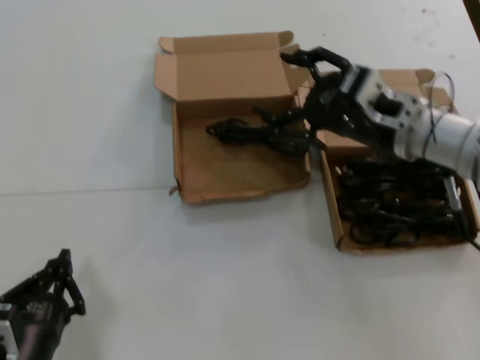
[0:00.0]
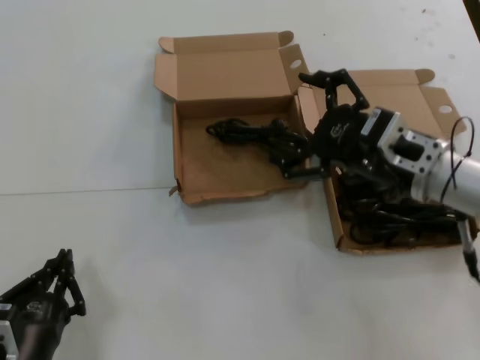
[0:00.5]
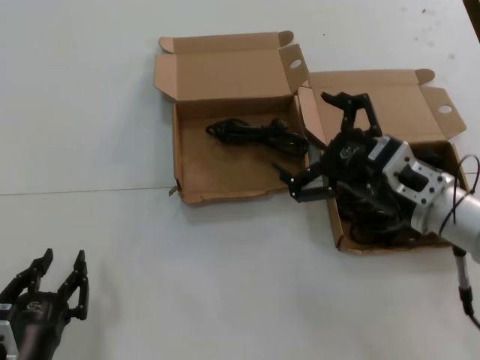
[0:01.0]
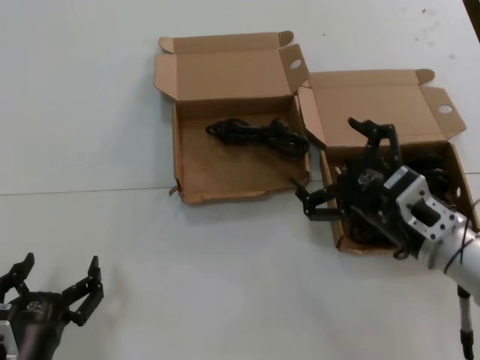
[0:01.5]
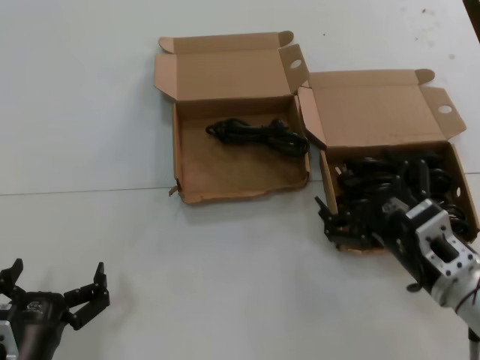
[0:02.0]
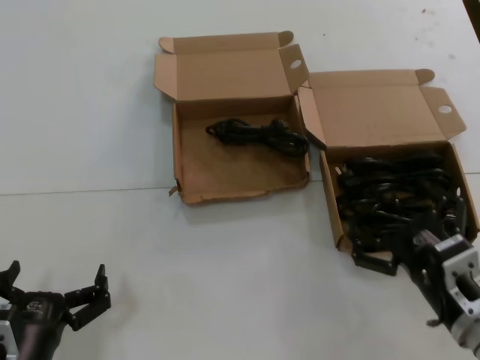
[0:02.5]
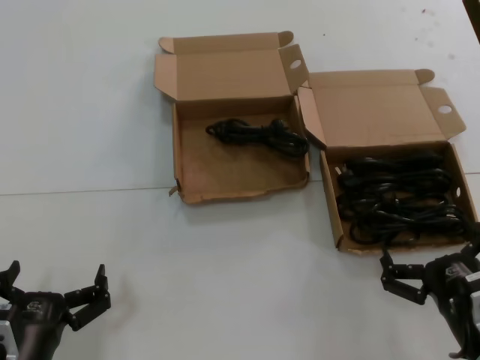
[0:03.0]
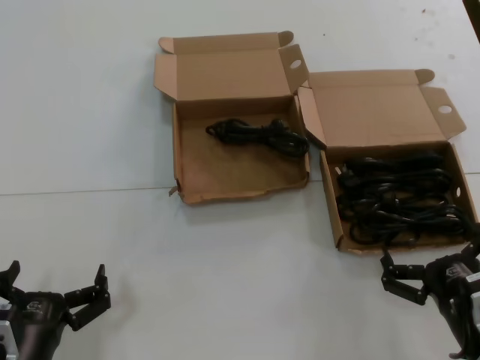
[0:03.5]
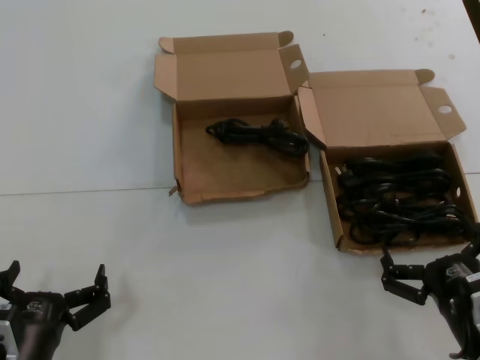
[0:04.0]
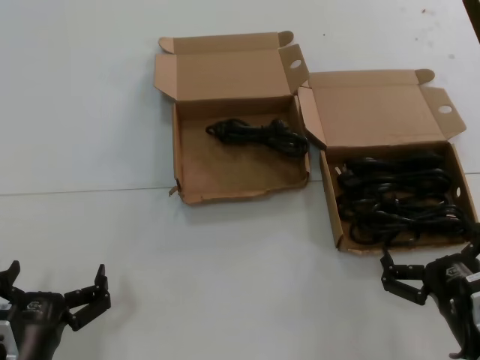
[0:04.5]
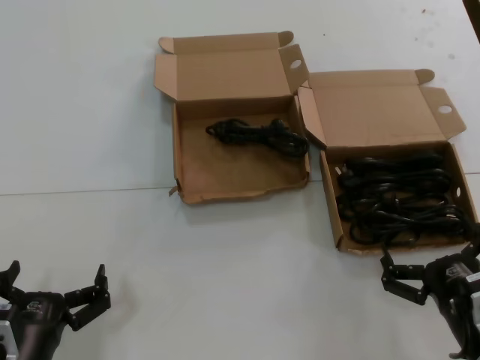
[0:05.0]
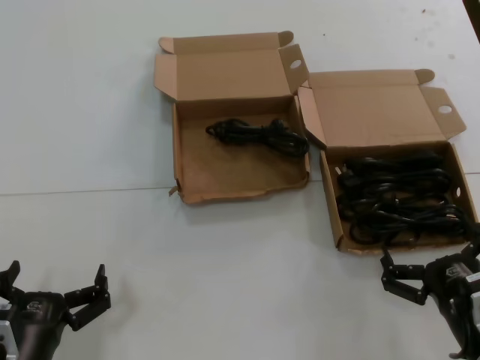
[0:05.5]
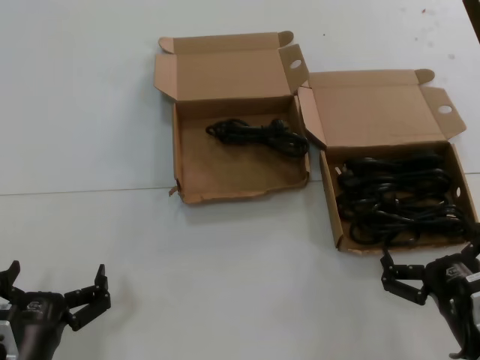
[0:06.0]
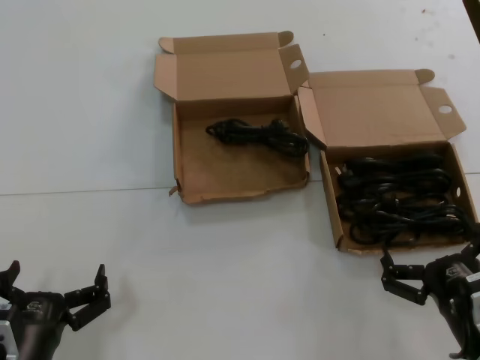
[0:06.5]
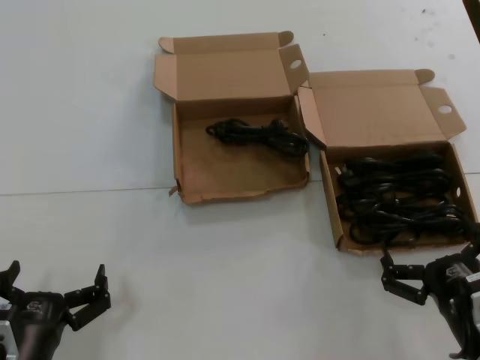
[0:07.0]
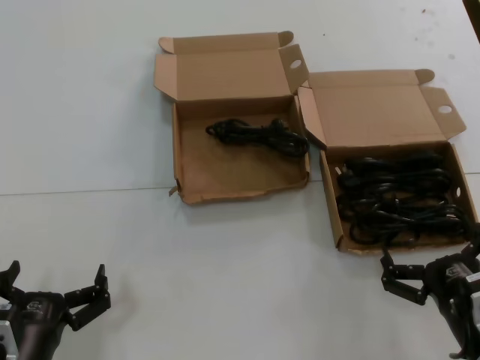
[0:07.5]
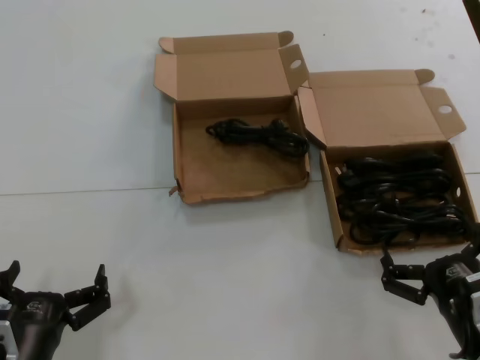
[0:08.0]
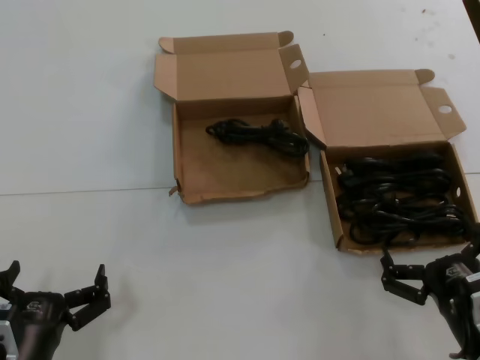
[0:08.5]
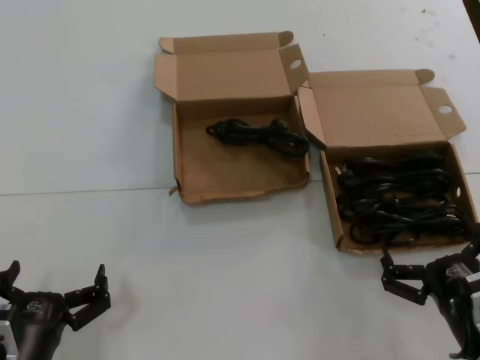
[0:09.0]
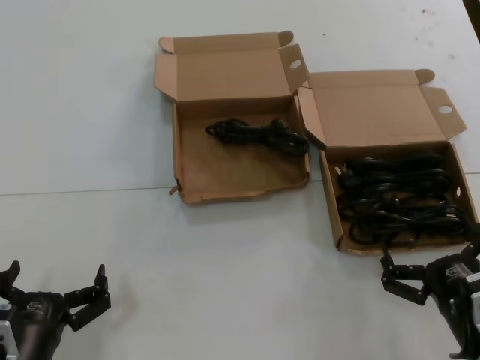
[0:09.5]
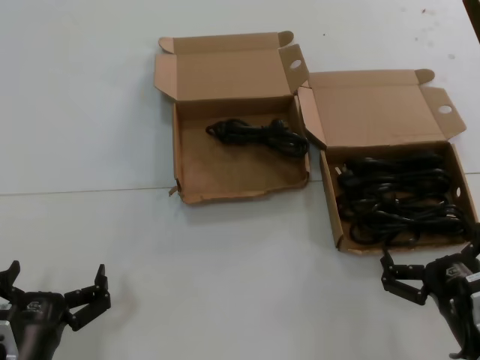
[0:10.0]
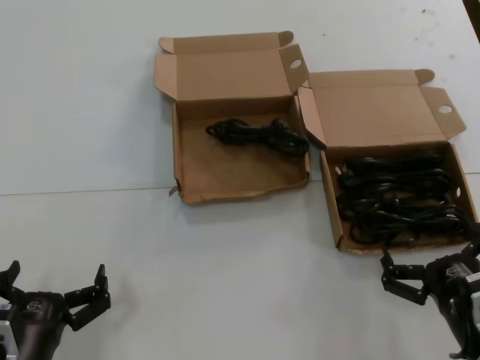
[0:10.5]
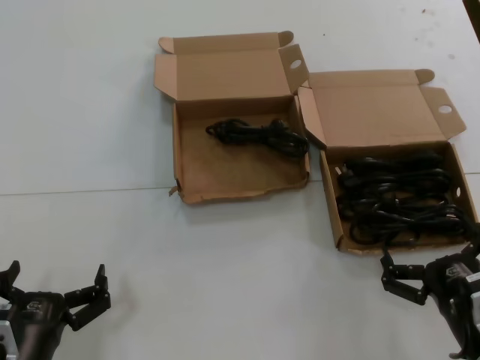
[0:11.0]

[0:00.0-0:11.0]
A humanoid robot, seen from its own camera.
Task of the whole recording: take the parts from the box containing them and put them into an empty box.
0:00.0 to 0:02.0: The right hand travels downward and backward by roughly 20 cm.
0:02.0 to 0:03.5: The right hand goes approximately 10 cm backward and downward.
0:03.5 to 0:11.0: Neither hand changes place.

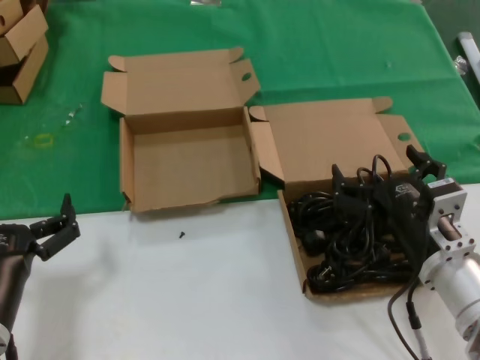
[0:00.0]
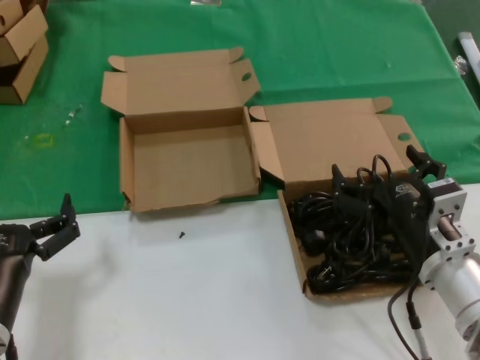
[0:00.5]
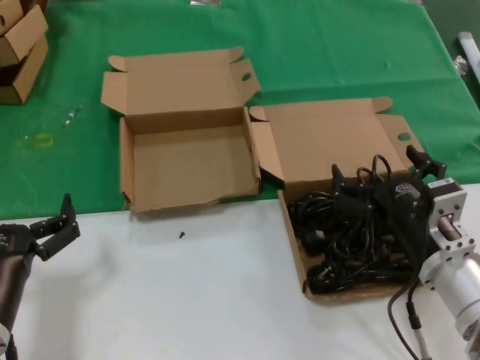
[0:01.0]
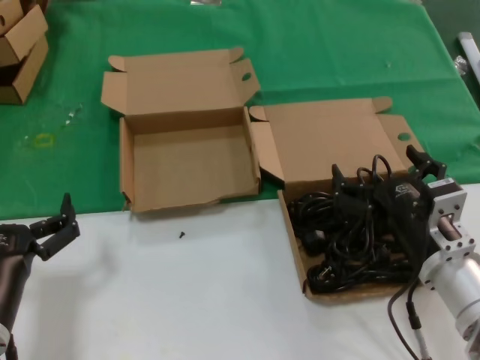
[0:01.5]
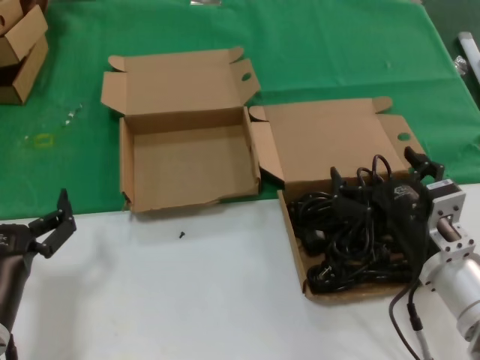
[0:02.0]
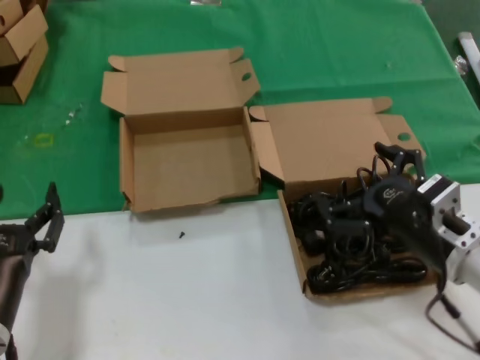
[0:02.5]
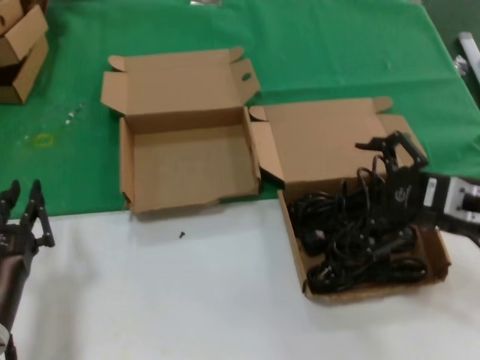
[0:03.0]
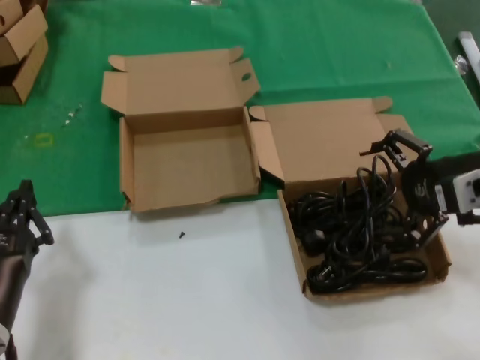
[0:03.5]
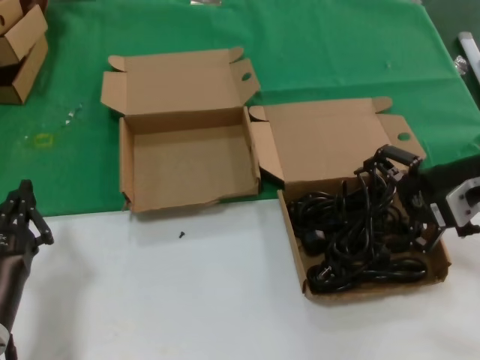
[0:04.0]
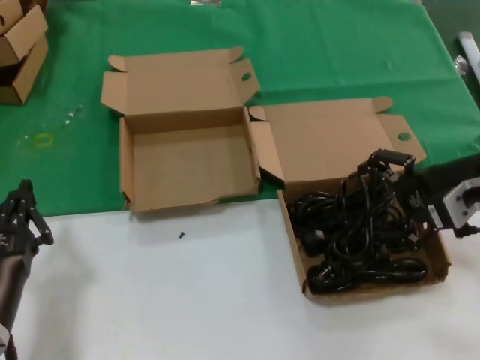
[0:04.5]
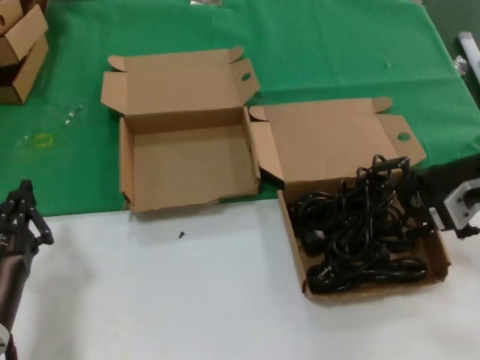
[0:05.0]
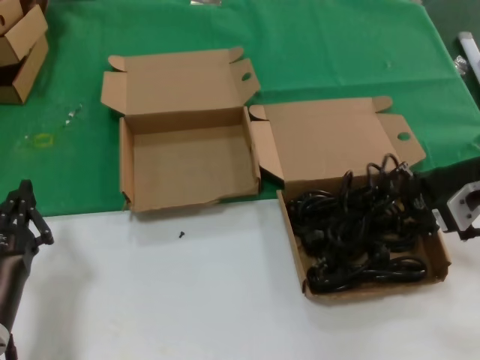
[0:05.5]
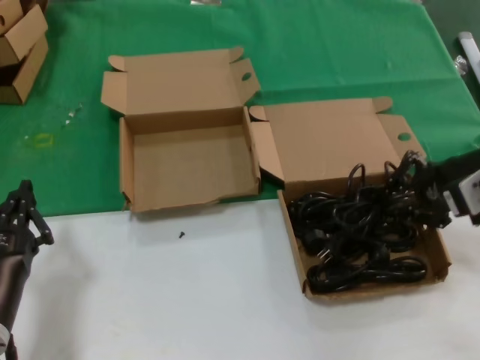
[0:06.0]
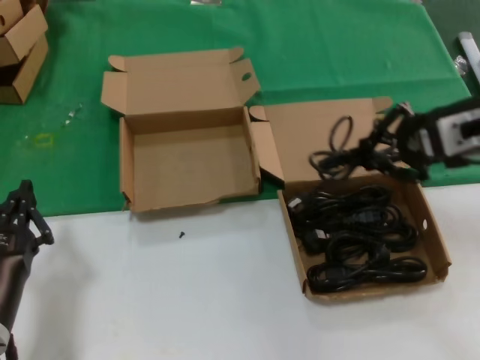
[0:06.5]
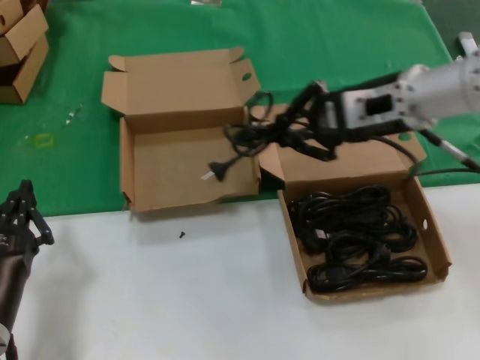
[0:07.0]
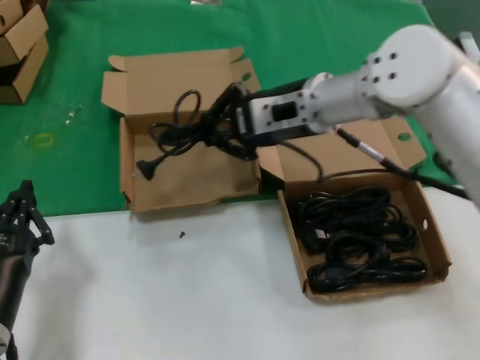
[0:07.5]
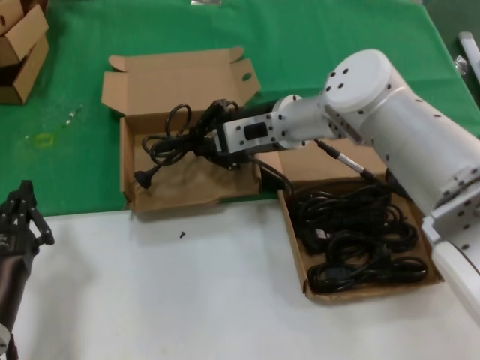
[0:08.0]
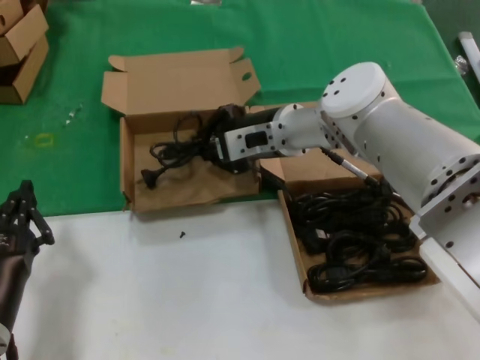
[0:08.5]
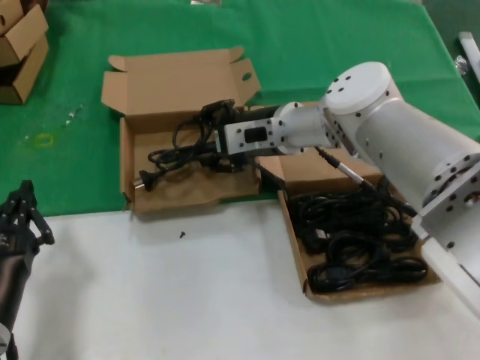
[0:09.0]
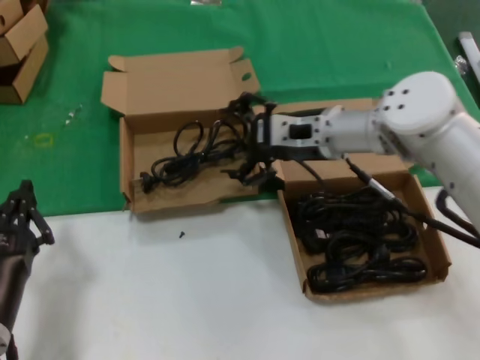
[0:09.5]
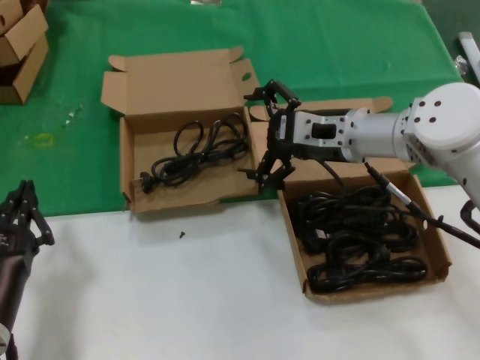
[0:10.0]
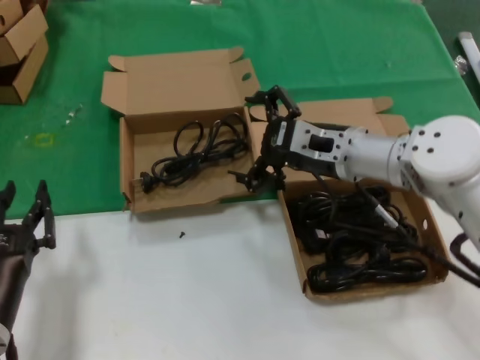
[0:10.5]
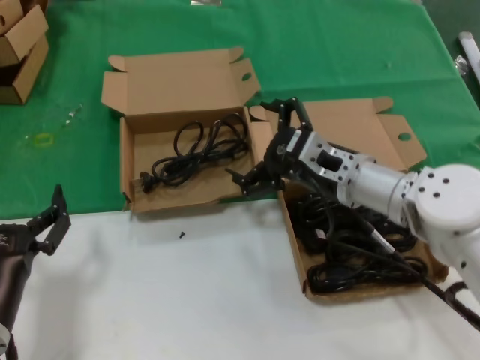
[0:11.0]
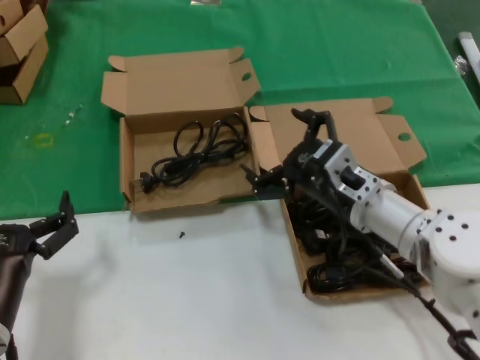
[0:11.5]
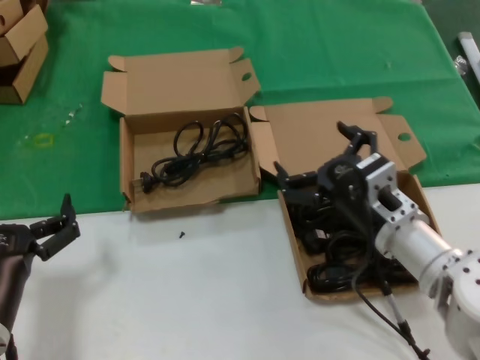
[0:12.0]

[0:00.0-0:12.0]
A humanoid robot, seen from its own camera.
Task of the whole recording: take the parts from the box containing them and put them into an empty box.
Step, 0:00.0 to 0:05.5: Grasp the data cable.
Step, 0:06.0 to 0:09.0: Place the data cable in the another box.
0:00.0 to 0:02.0: The two hands keep their place.
0:02.0 to 0:04.0: The right hand moves upward, to the right and forward, some 20 cm.
0:04.0 to 0:06.0: The hands stay close to where they were, moving slightly.
0:06.0 to 0:08.0: The right hand moves to the left and forward, about 30 cm.
0:08.0 to 0:10.0: The right hand is displaced to the right by roughly 10 cm.
0:10.0 to 0:12.0: The right hand travels backward and downward by about 15 cm.

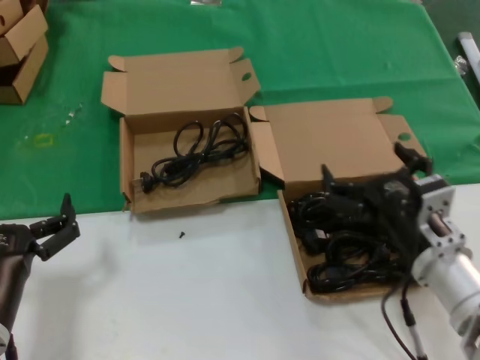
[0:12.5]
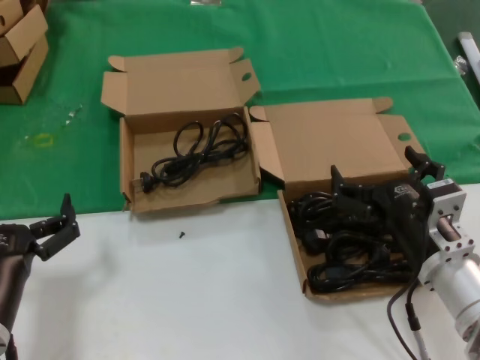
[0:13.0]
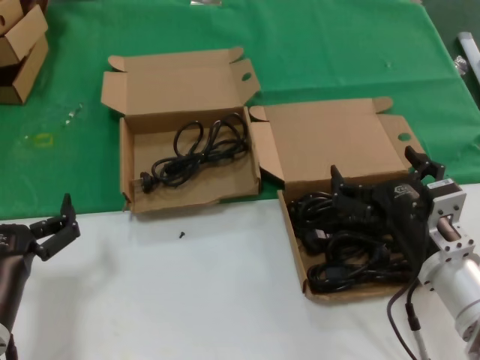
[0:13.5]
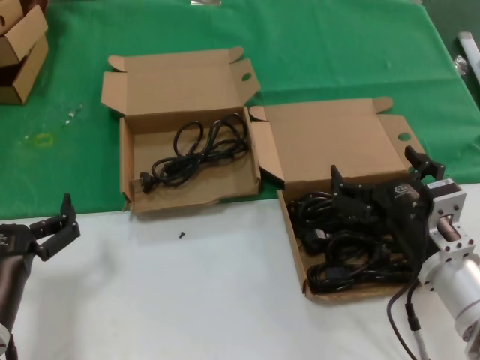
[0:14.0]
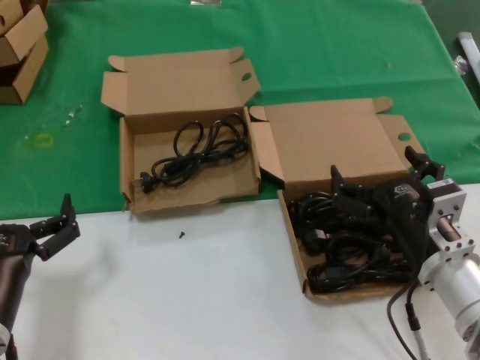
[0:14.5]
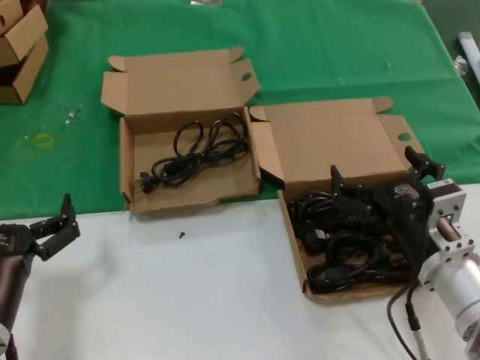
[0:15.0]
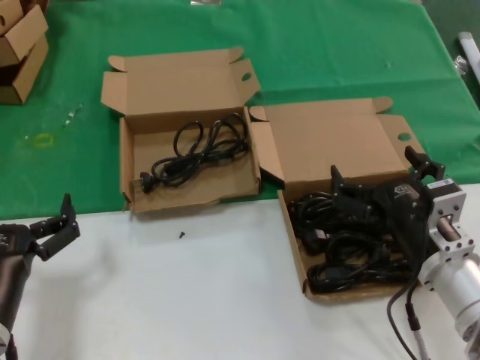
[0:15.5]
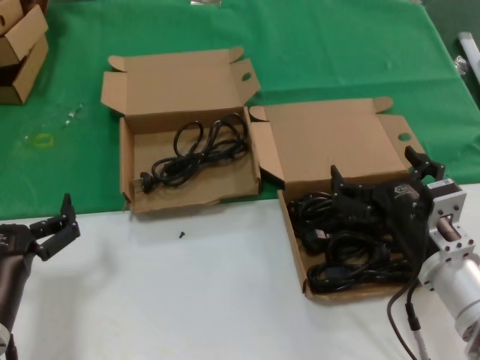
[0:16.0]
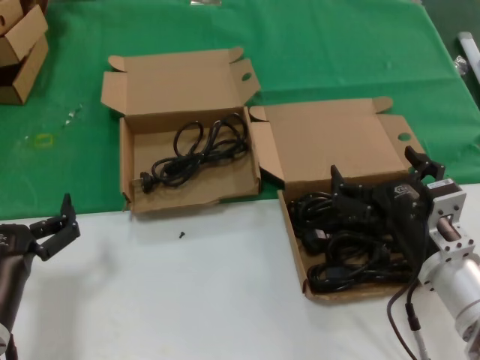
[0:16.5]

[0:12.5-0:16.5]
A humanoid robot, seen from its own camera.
Task of the whole recording: take the parts from the box containing them and put them into an empty box.
0:12.5 to 0:16.5: The two hands keep their place.
